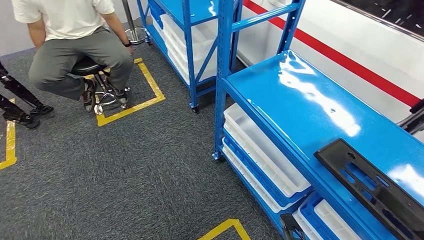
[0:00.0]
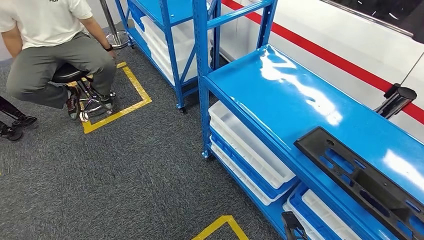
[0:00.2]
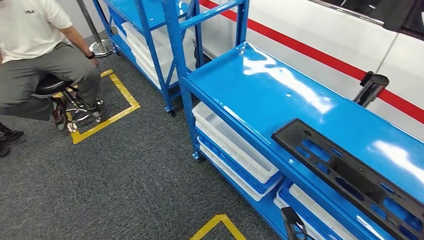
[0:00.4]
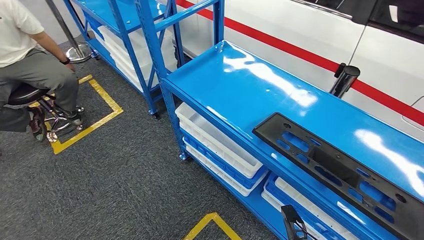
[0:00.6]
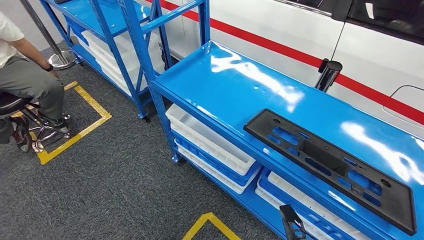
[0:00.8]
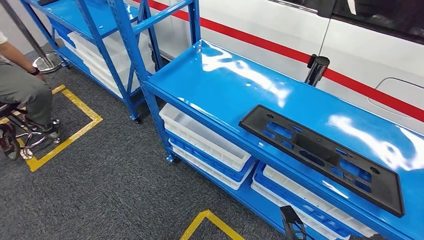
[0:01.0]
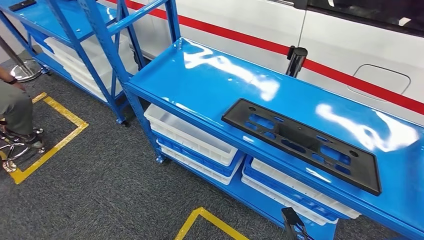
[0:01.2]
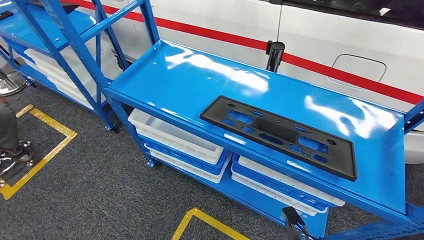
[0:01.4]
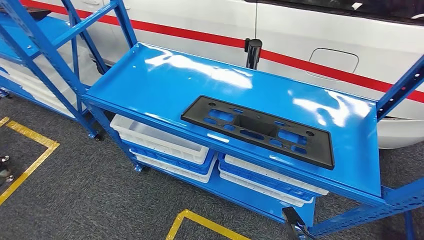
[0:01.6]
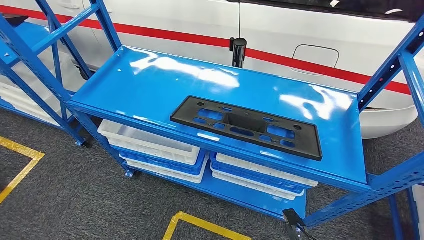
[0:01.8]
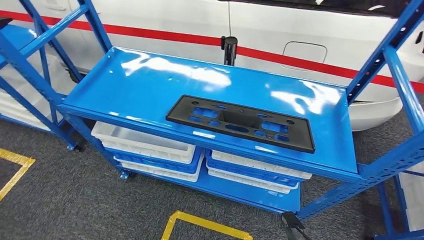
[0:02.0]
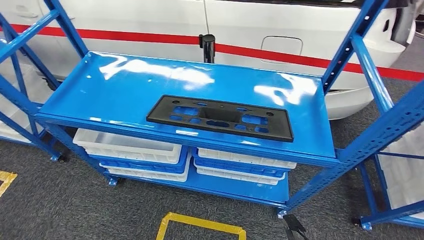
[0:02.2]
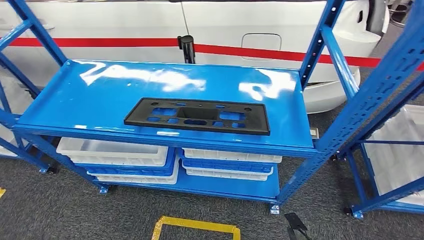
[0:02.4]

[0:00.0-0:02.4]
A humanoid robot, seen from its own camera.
Step, 0:00.0 to 0:02.4: Return to the initial position at the shelf.
